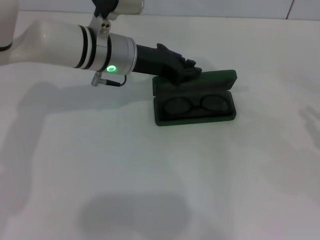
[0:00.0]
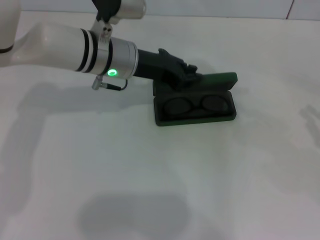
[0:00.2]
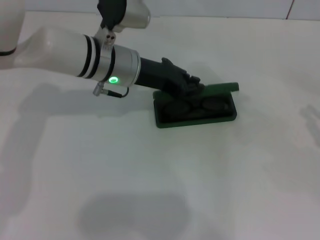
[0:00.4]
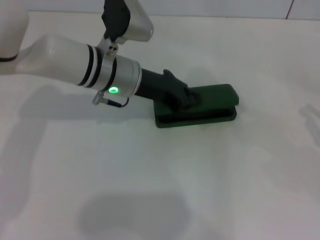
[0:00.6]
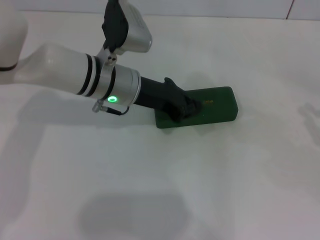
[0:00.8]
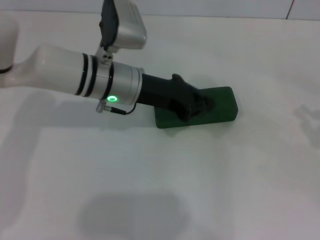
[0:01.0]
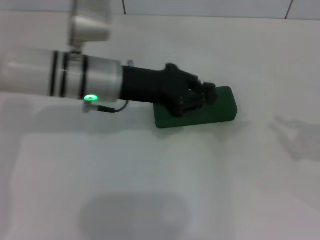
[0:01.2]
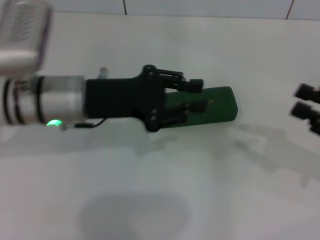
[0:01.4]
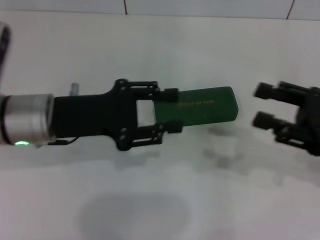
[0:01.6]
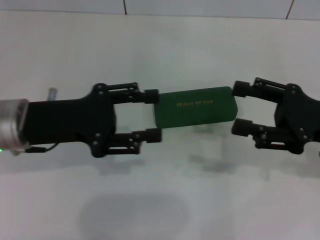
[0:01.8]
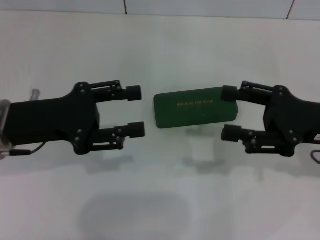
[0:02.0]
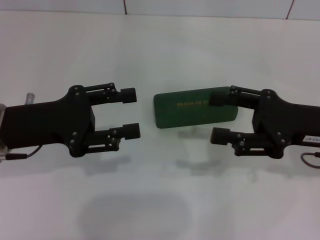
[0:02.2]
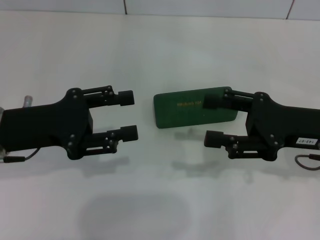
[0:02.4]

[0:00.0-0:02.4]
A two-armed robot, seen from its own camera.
0:00.0 to 0:01.2: The left gripper heads backward, covering roughly 5 cm.
0:01.2 to 0:02.4: The left gripper is displaced to the left and backward by approximately 15 cm, and opens up. The right gripper moves to the left, some 15 cm, and opens its fingers.

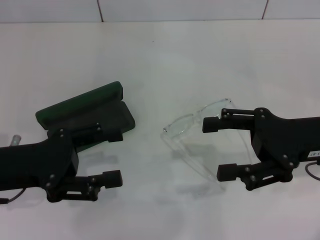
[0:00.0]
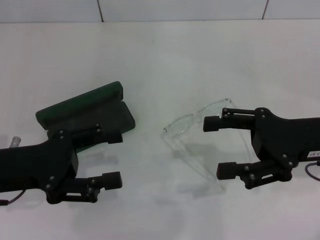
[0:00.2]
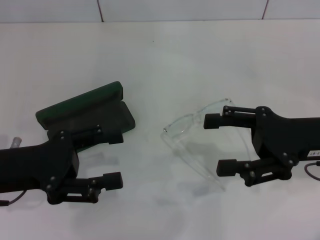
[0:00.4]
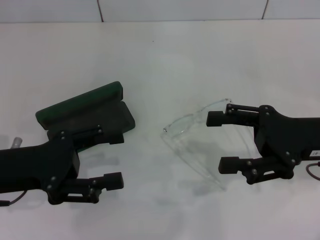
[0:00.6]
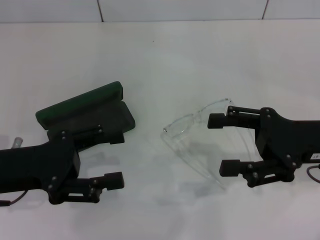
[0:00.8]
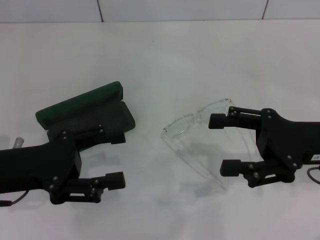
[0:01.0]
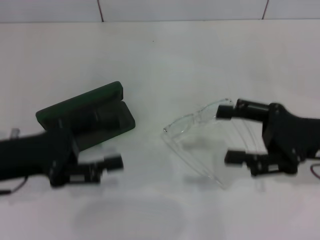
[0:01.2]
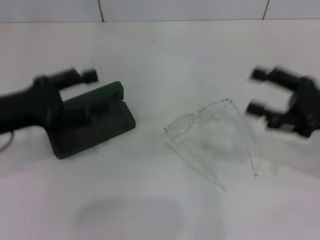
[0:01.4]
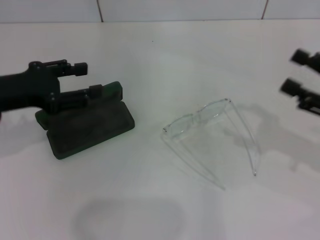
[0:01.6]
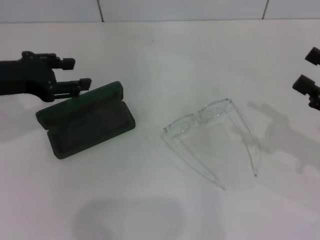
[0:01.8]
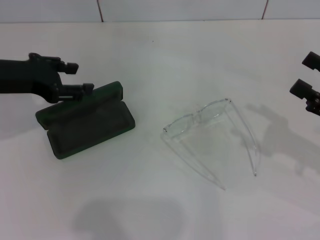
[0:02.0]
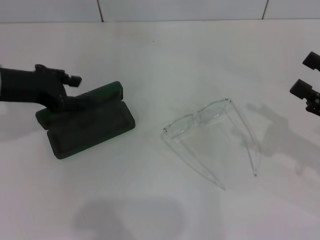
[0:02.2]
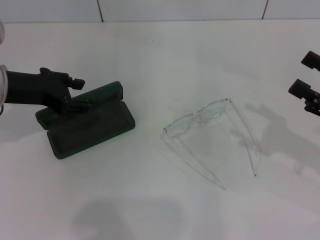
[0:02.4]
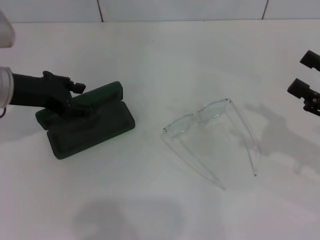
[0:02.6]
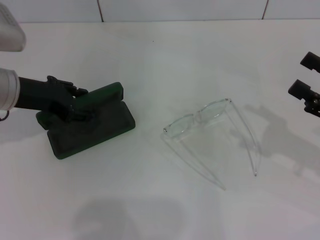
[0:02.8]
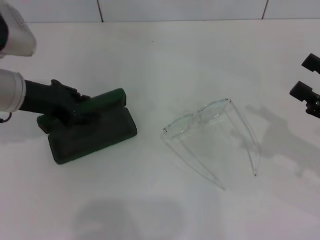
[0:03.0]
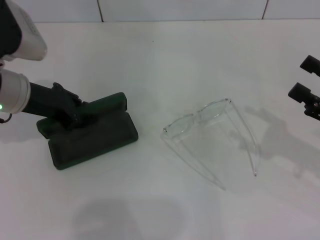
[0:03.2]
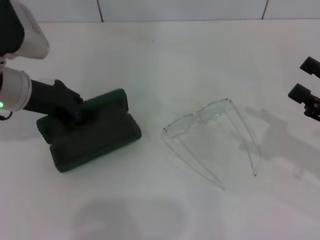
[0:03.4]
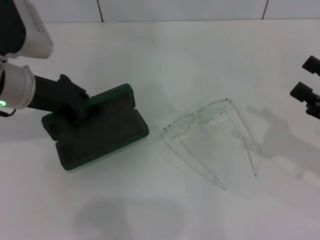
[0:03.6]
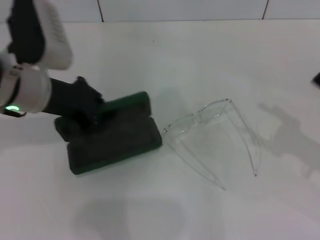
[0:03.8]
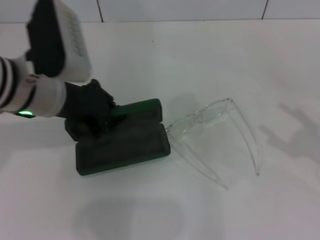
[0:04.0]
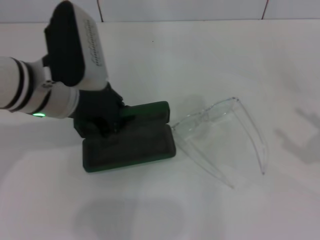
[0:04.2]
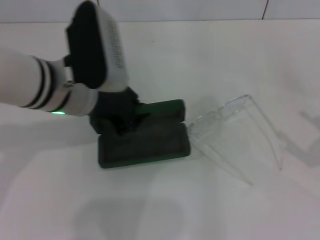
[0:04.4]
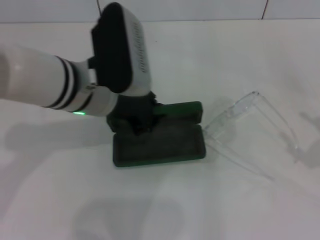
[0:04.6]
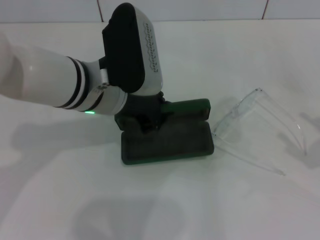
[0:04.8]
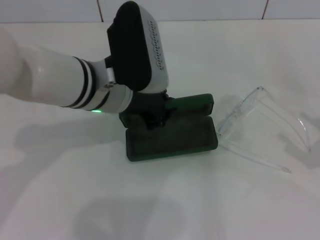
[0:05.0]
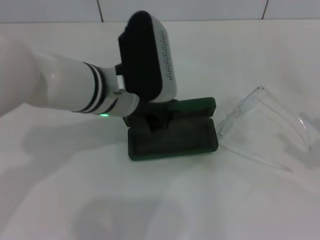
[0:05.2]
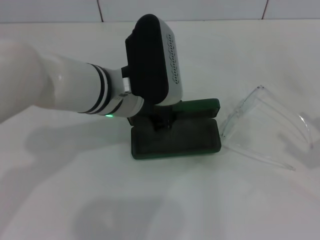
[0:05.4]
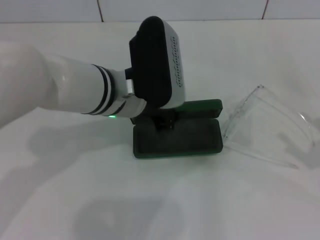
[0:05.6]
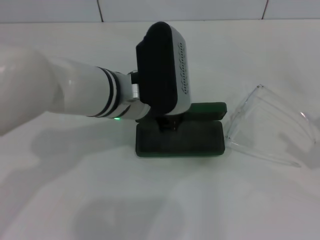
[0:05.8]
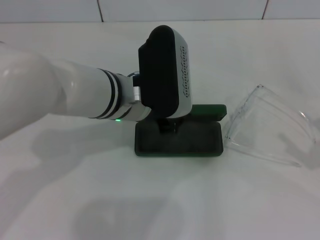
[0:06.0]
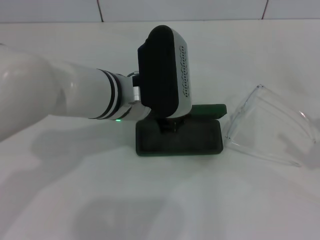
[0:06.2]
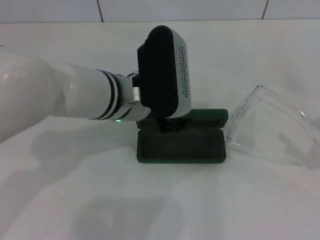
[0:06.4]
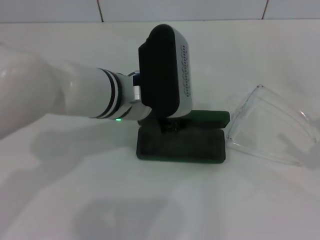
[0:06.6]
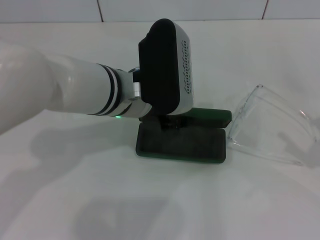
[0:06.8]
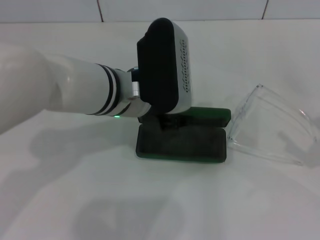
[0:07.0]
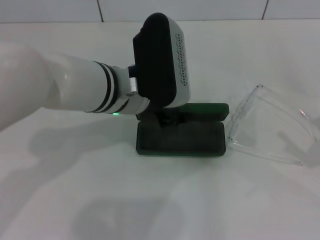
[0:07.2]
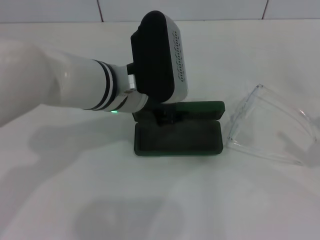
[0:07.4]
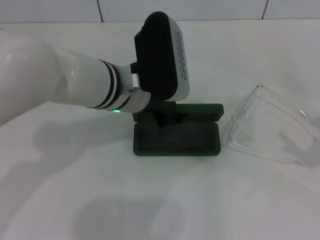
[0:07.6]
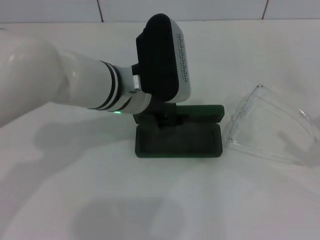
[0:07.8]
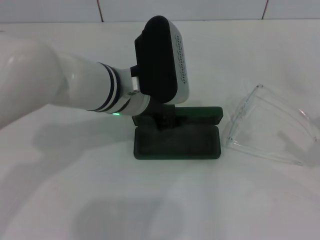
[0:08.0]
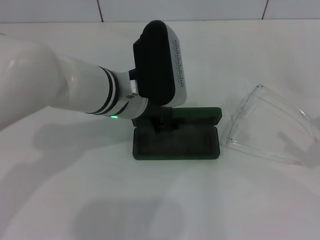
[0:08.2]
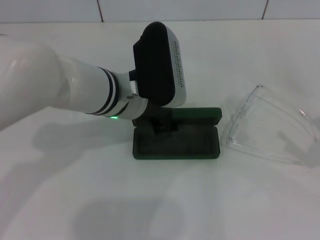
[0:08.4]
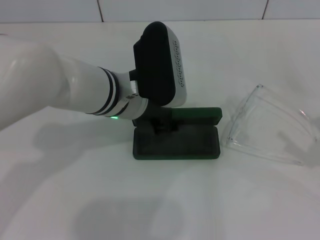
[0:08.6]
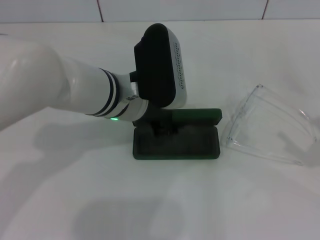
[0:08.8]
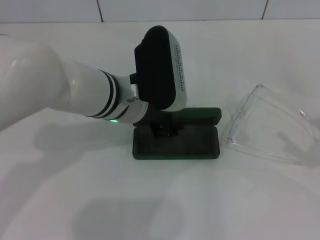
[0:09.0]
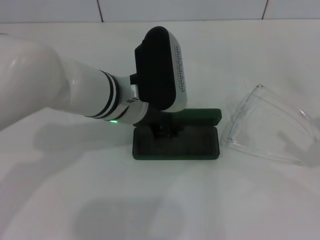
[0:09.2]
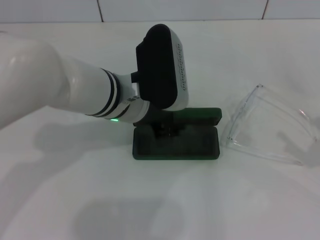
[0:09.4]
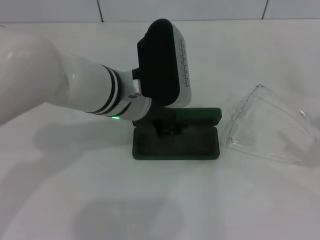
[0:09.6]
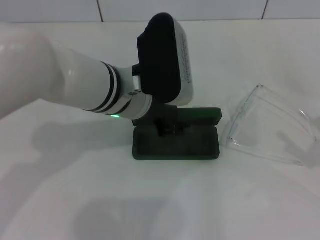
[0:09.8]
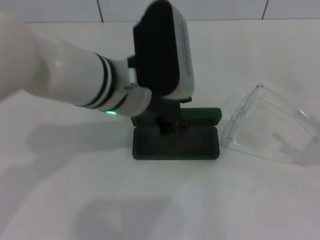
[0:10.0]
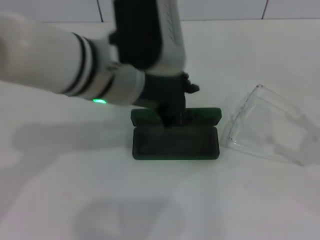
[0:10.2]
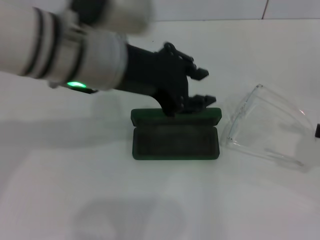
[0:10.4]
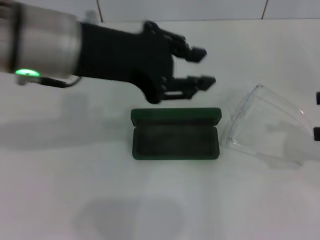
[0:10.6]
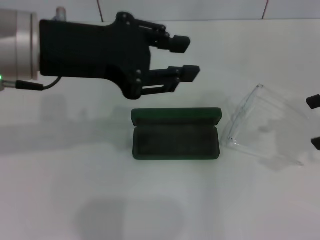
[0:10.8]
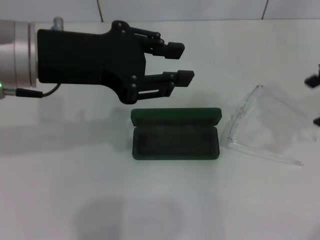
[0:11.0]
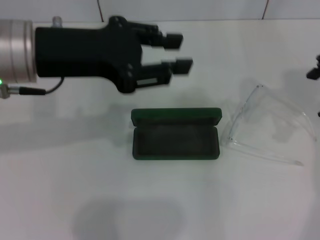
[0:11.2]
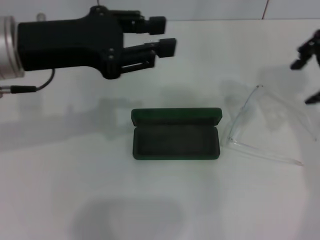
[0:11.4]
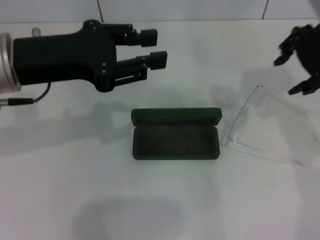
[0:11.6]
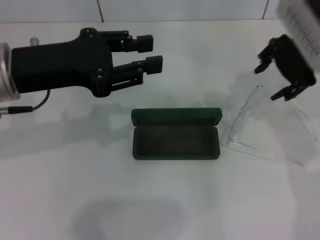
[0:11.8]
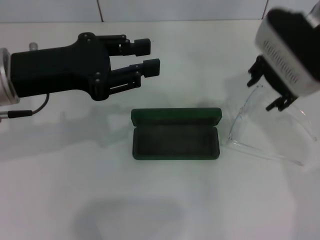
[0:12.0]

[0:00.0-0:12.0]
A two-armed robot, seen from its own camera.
Step, 0:00.0 to 0:03.2: Grab the glasses case with your left hand.
Step, 0:03.4 to 0:08.8: Place the glasses case in the center of the table with your left hand.
0:00.0 to 0:01.6: The right gripper shifts about 10 cm to the right, while the left gripper shifts roughly 5 cm forward.
0:01.6 to 0:03.0: The left gripper shifts by some 5 cm, and closes its fingers.
0:03.0 to 0:04.4: The right gripper shifts about 5 cm backward. Meanwhile the left gripper shifts approximately 10 cm to the right, and closes up.
0:04.4 to 0:06.0: The left gripper goes roughly 5 cm to the right.
0:06.0 to 0:07.6: The left gripper opens its fingers.
0:07.6 to 0:09.0: Both grippers stay put.
0:09.0 to 0:10.4: The right gripper travels forward by approximately 5 cm. The left gripper moves upward, about 10 cm.
0:10.4 to 0:12.0: The right gripper moves to the left, forward and upward, about 25 cm; the left gripper moves to the left, roughly 10 cm.

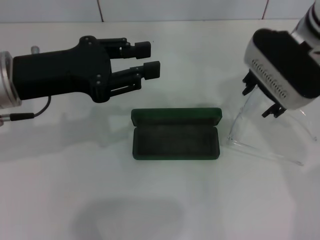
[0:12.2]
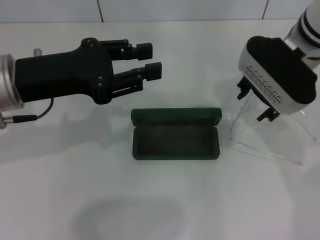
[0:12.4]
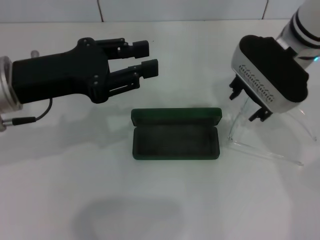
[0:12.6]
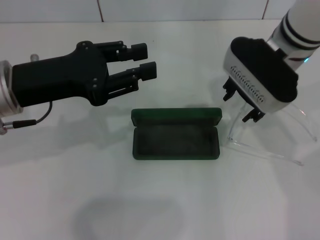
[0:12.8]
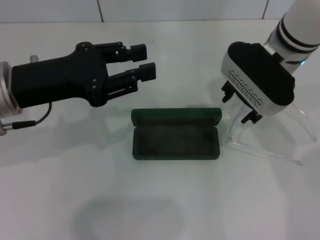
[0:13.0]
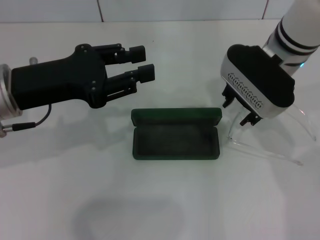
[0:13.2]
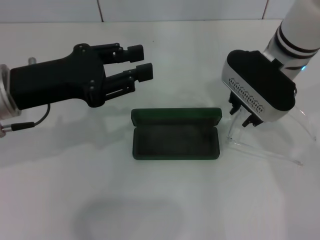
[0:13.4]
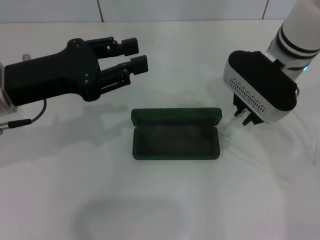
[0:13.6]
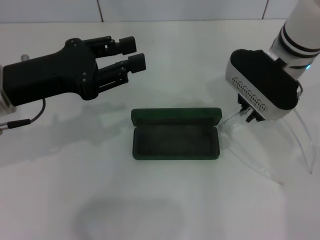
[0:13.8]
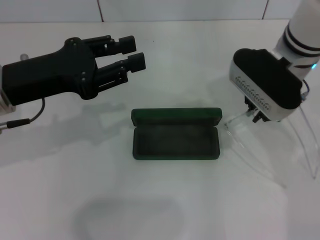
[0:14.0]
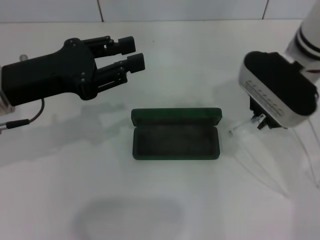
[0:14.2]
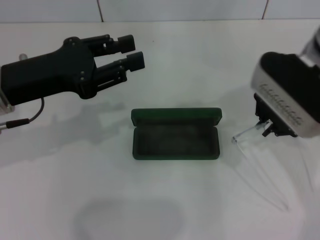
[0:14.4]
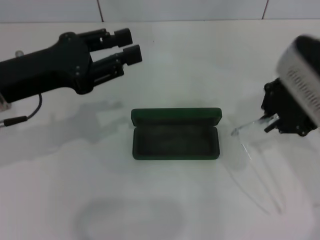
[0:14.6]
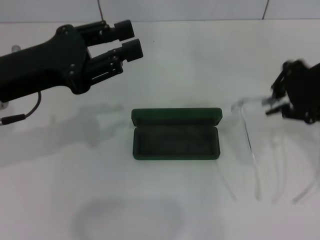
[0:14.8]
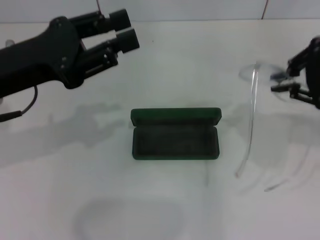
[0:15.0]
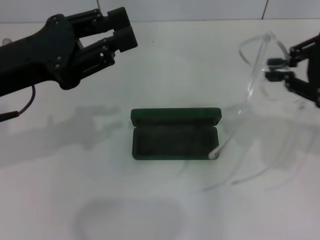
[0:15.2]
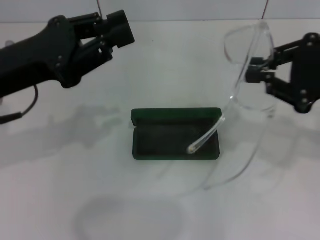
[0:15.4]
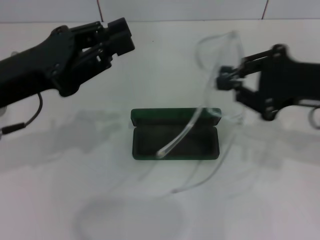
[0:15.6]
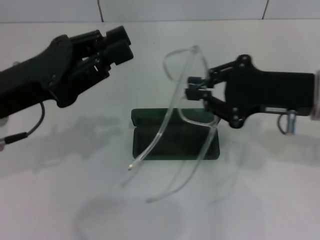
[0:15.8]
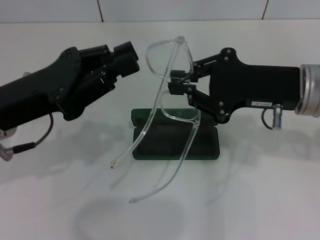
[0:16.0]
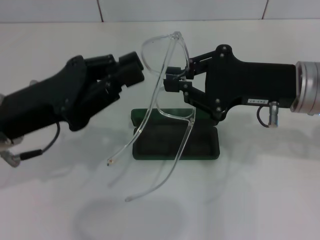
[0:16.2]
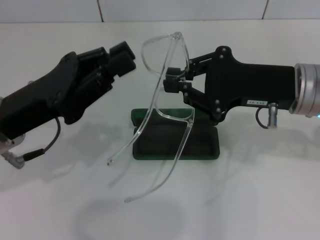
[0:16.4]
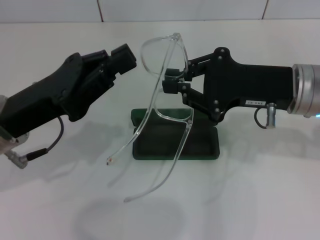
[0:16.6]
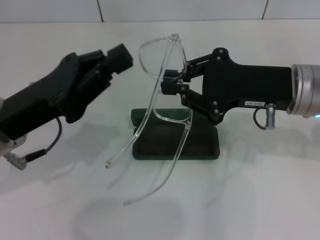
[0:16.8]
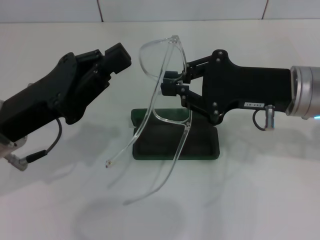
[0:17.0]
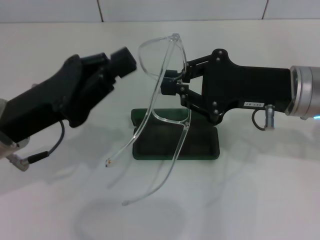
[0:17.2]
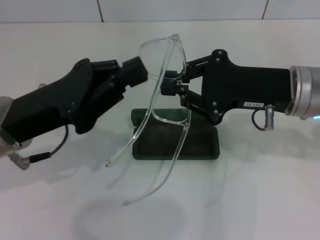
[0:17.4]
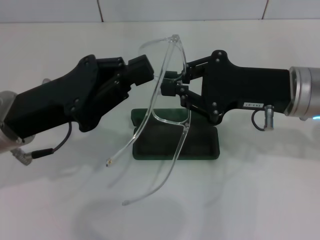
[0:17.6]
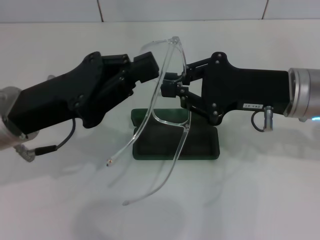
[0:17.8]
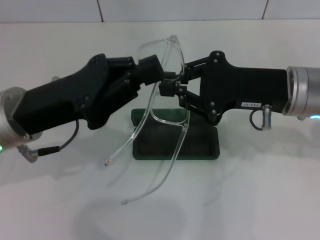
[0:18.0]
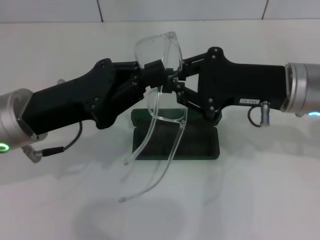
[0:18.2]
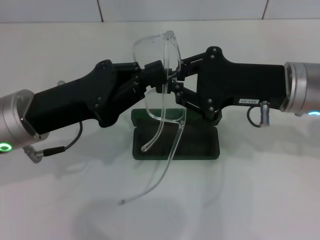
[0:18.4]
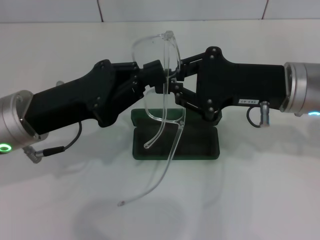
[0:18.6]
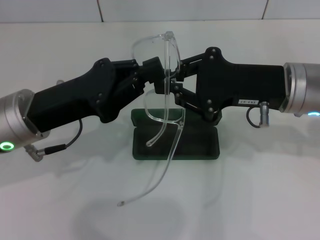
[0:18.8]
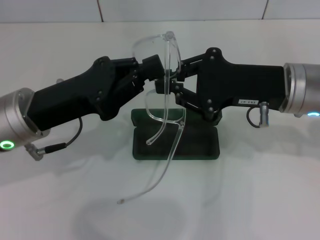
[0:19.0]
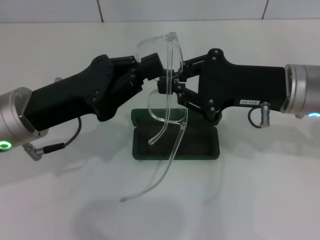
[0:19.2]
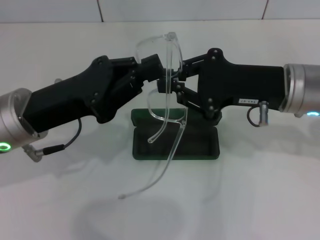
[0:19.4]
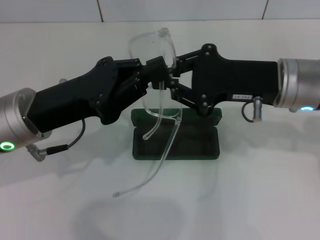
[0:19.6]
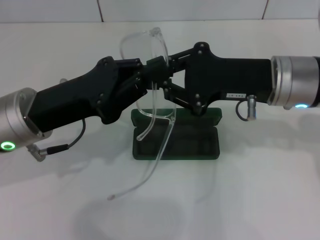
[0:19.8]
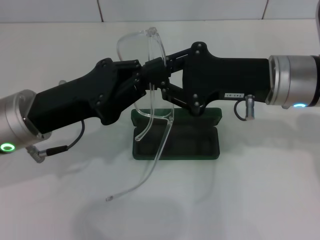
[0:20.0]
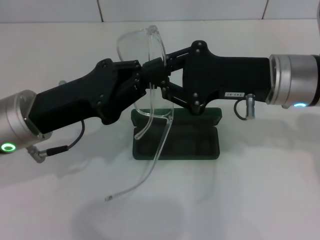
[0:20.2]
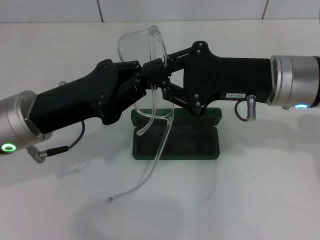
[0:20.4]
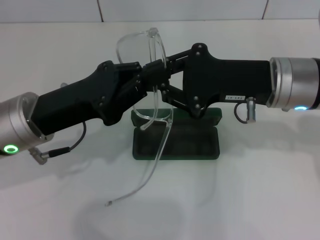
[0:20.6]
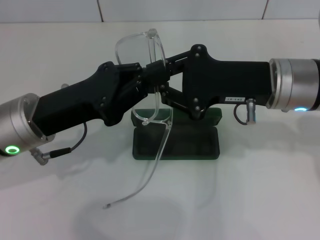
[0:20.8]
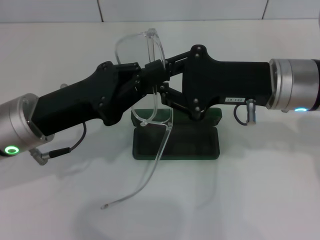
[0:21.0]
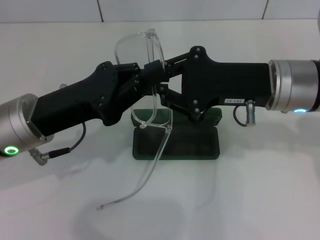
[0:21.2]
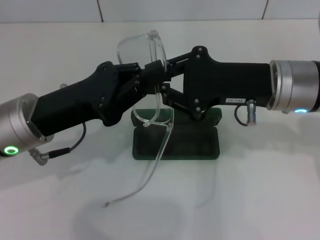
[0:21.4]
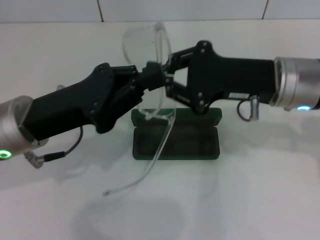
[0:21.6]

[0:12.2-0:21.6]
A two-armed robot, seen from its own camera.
0:12.2 to 0:13.8: The right gripper closes its fingers.
0:13.8 to 0:15.4: The right gripper shifts roughly 15 cm to the right and backward.
0:15.4 to 0:17.0: The right gripper goes roughly 10 cm to the left. Meanwhile the left gripper heads downward, covering roughly 5 cm.
0:17.0 to 0:20.0: The grippers make only small movements.
0:20.0 to 0:21.6: The two grippers keep their place.
